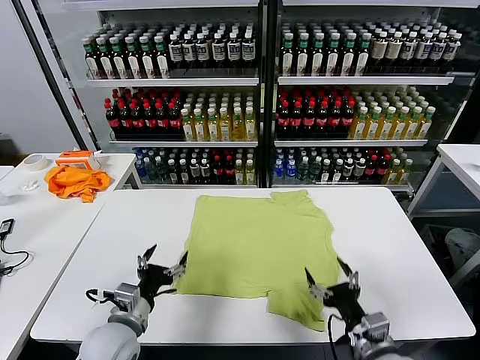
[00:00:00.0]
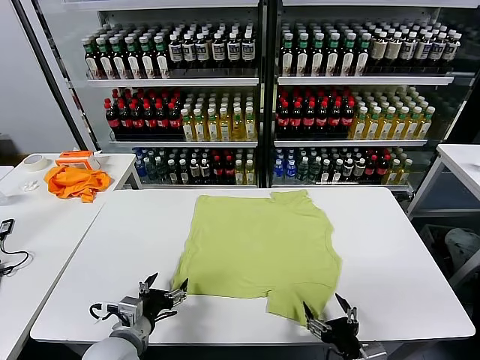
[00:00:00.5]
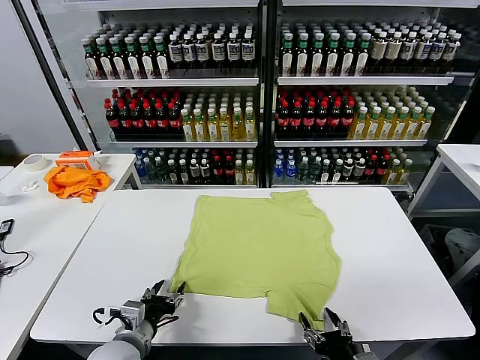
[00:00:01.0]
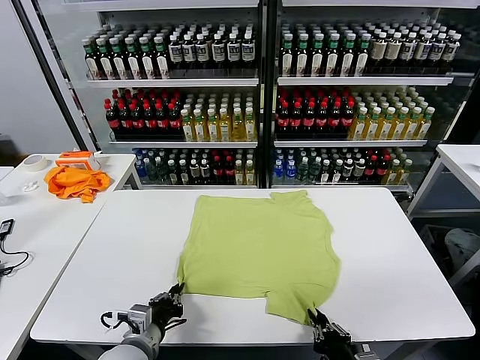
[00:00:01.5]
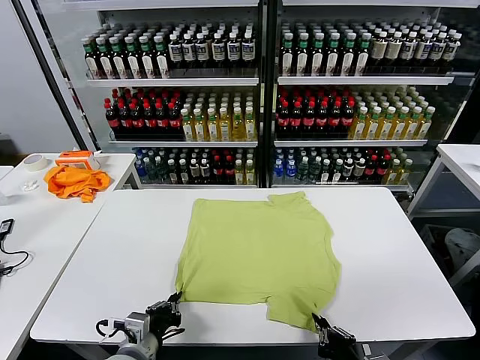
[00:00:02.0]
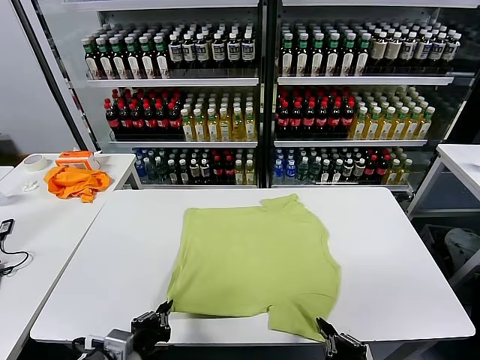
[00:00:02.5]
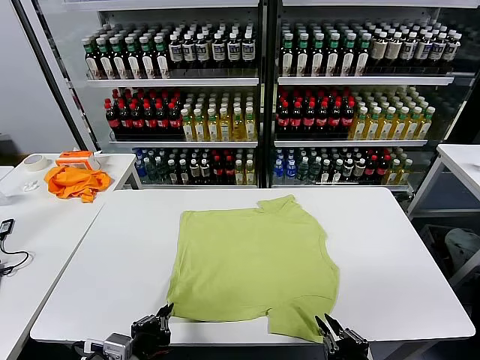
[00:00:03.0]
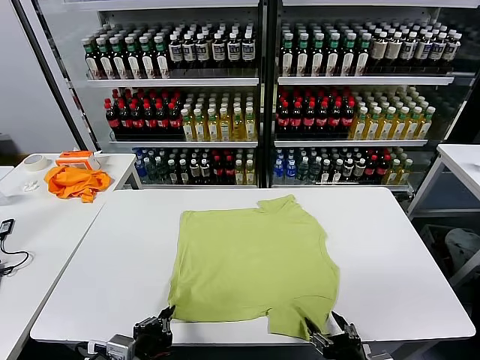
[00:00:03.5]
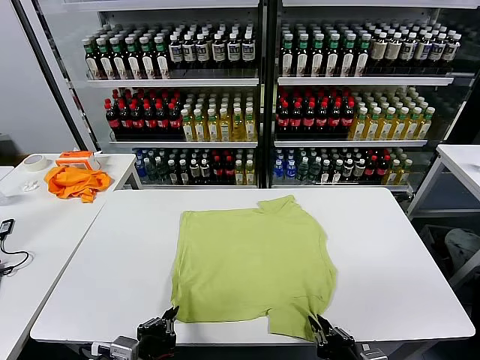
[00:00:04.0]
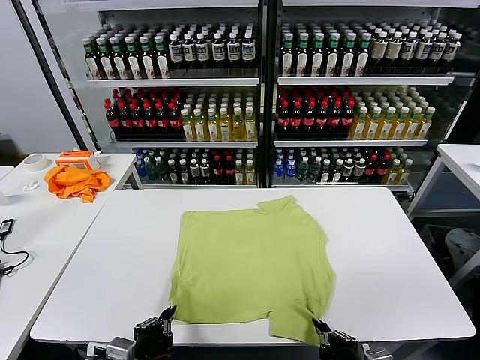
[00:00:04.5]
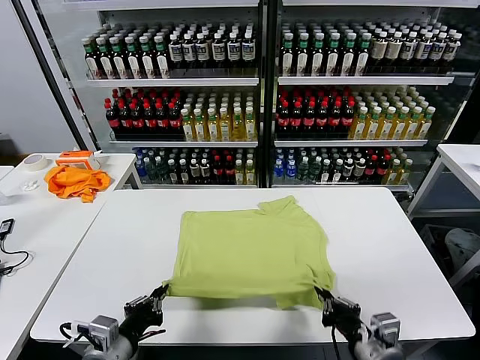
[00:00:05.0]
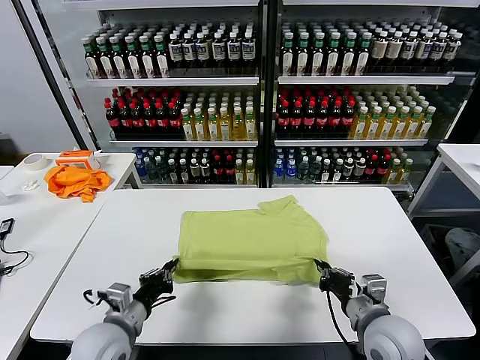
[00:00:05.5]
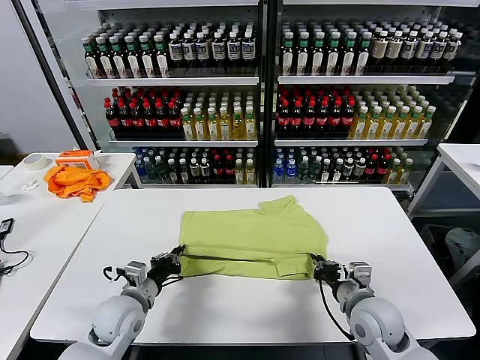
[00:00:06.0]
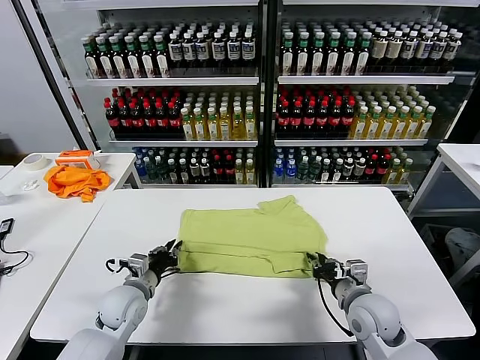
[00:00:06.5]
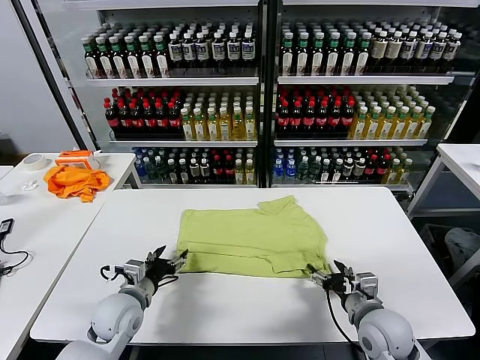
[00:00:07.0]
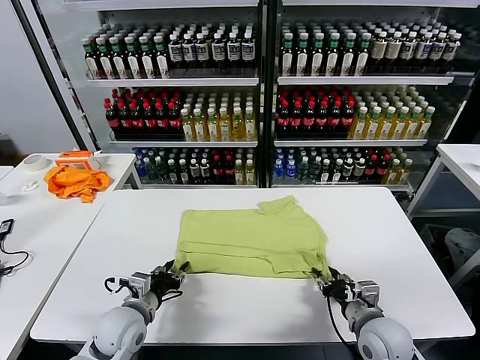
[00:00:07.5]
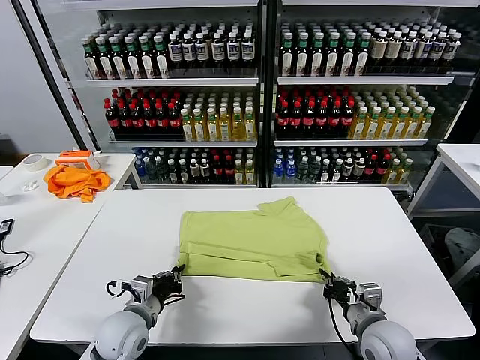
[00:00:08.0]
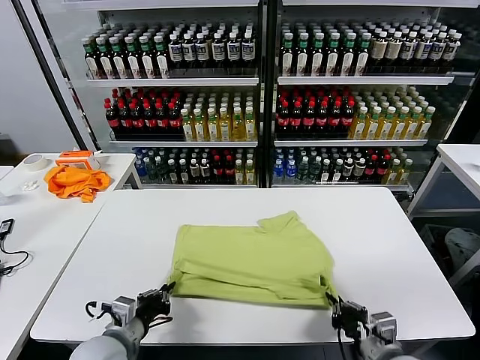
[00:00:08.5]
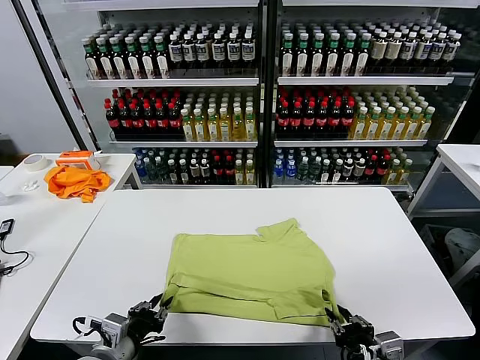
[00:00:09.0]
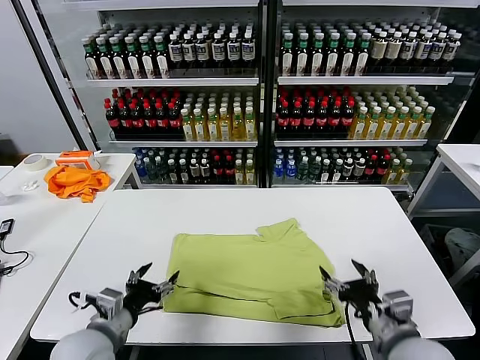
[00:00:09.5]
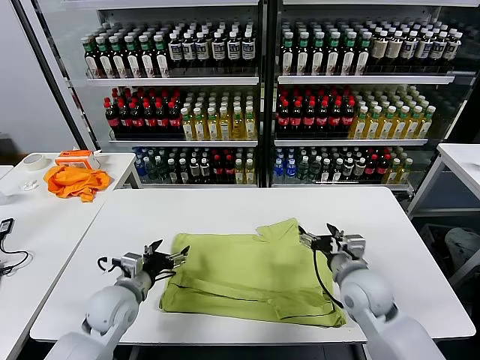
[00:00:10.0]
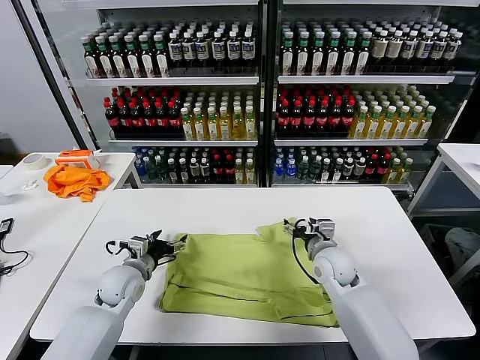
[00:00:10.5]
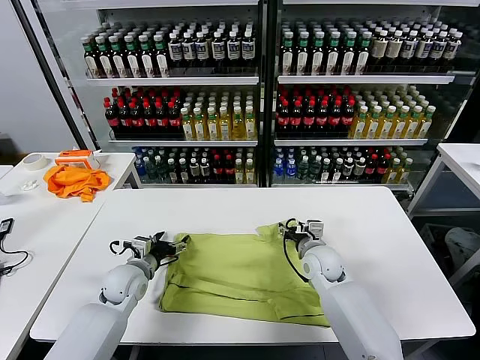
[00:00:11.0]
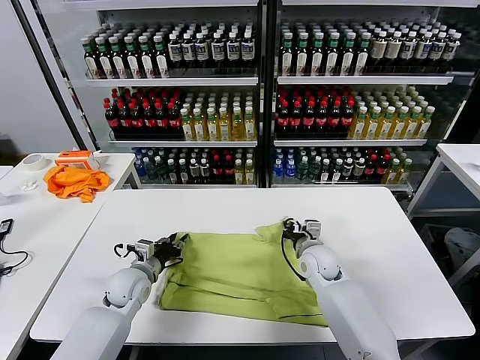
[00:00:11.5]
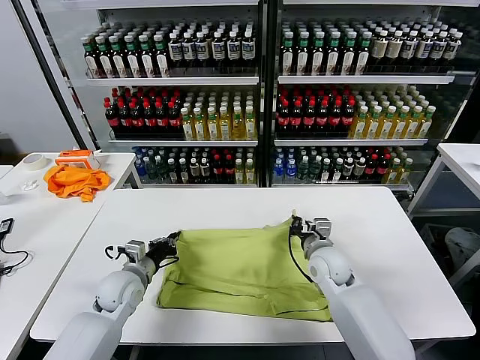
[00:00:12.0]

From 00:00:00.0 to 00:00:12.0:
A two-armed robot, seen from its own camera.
Task of the whole recording: fold and organize the clothes.
Step, from 00:00:00.0 to 00:00:01.5: use both grippers simultaneously to clamp the lower edge of the clothing fabric.
Step, from 00:00:02.0 to 00:00:06.5: use both grippers to drag the lower edge of the fabric forward and fold it over the upper edge.
Step, from 00:00:07.0 to 00:00:09.0: Drag the clothes downward with both gripper.
Step, from 00:00:09.5 to 00:00:11.5: use both grippers simultaneously to clamp the upper edge of the clothing fabric.
From 00:00:02.0 to 00:00:04.0: The right gripper opens, then closes again, while the left gripper is displaced backward by approximately 5 cm.
From 00:00:04.0 to 00:00:06.0: The grippers both shift forward by roughly 20 cm.
From 00:00:06.0 to 00:00:08.0: The right gripper goes roughly 5 cm backward, and opens and closes again, while the left gripper opens and closes again.
From 00:00:08.0 to 00:00:10.0: The left gripper goes backward and returns, approximately 10 cm each way, and opens up. The right gripper is displaced forward by about 15 cm, and opens up.
From 00:00:10.0 to 00:00:12.0: The left gripper changes place by some 5 cm, and closes. The right gripper closes.

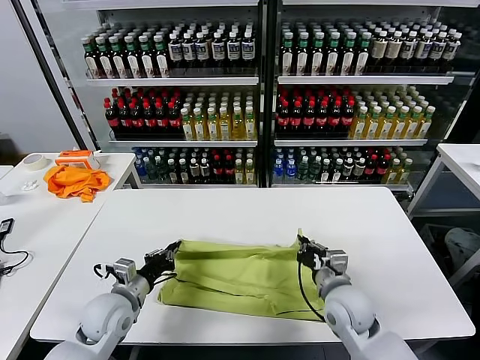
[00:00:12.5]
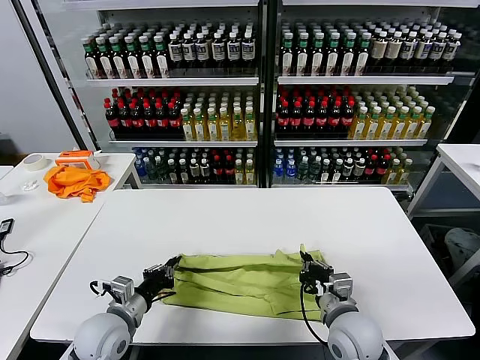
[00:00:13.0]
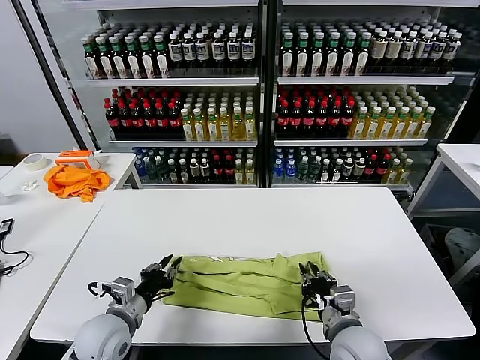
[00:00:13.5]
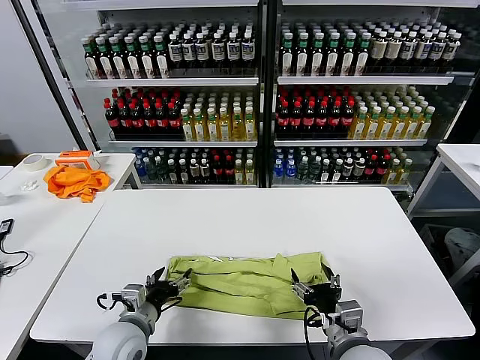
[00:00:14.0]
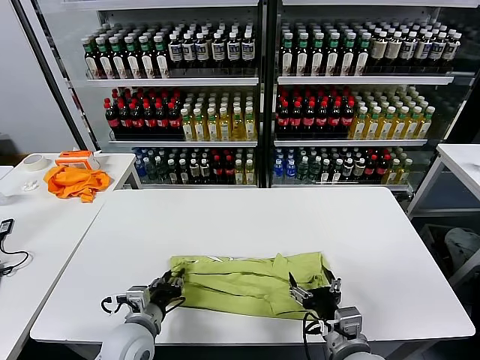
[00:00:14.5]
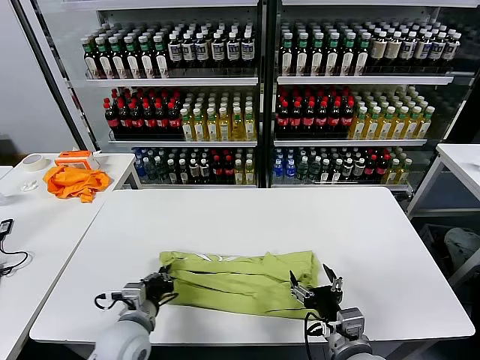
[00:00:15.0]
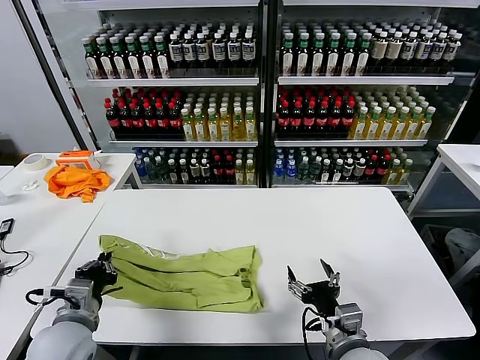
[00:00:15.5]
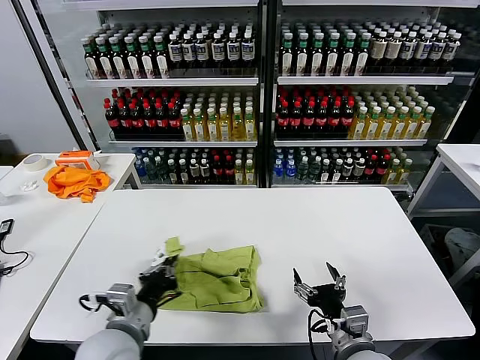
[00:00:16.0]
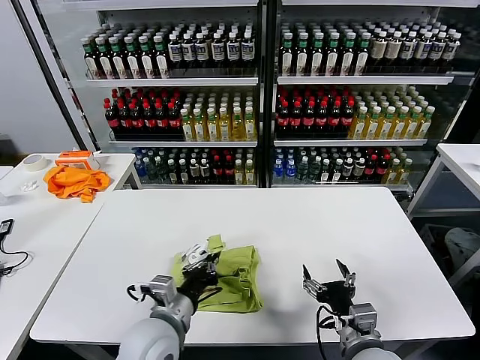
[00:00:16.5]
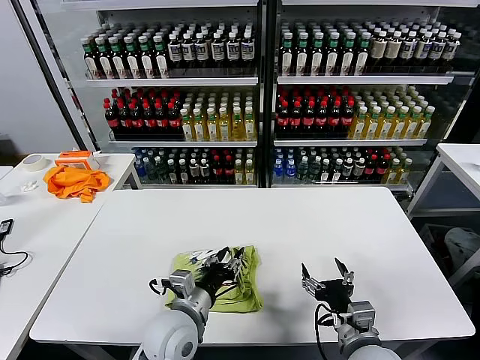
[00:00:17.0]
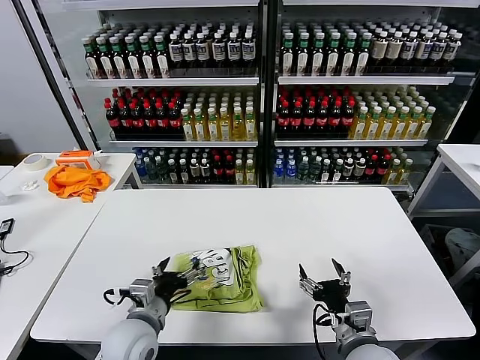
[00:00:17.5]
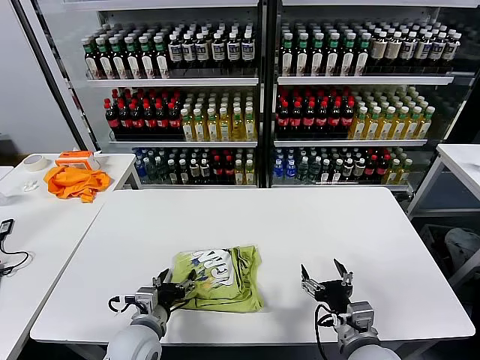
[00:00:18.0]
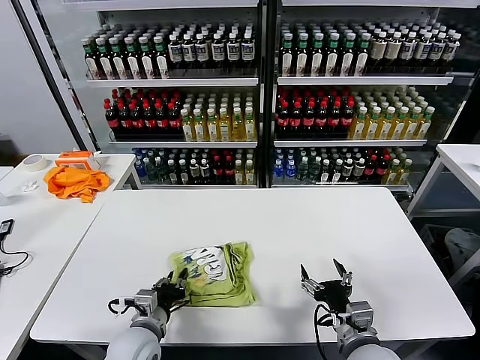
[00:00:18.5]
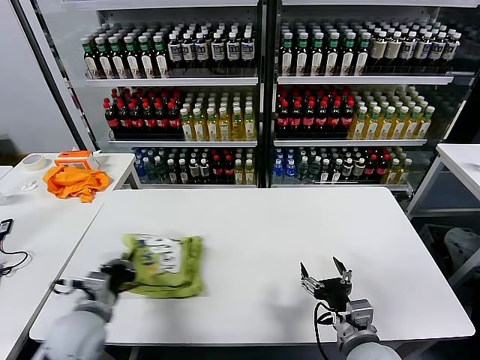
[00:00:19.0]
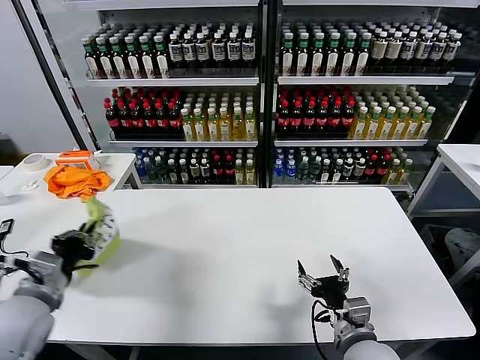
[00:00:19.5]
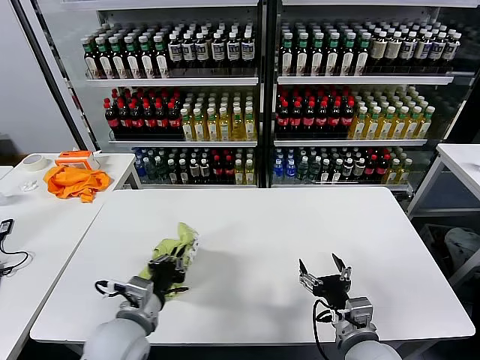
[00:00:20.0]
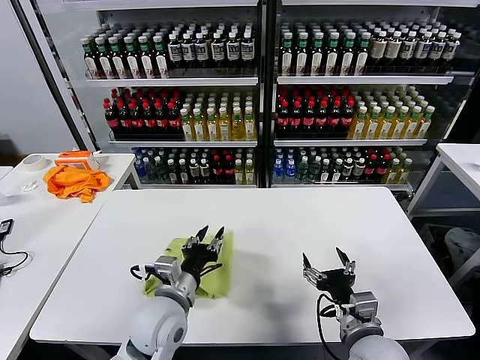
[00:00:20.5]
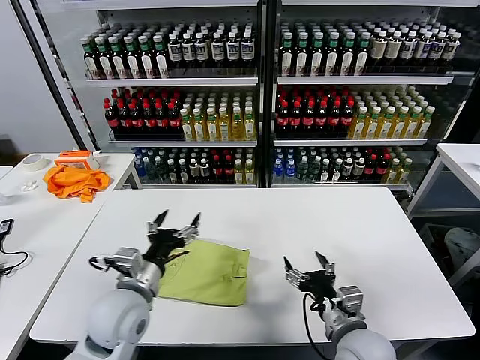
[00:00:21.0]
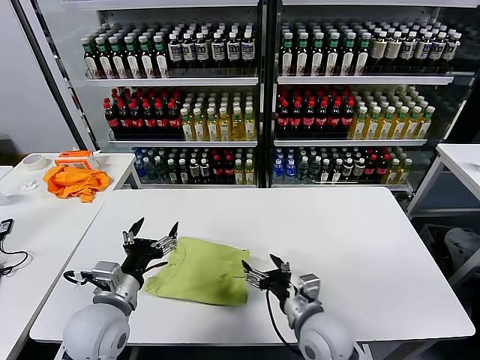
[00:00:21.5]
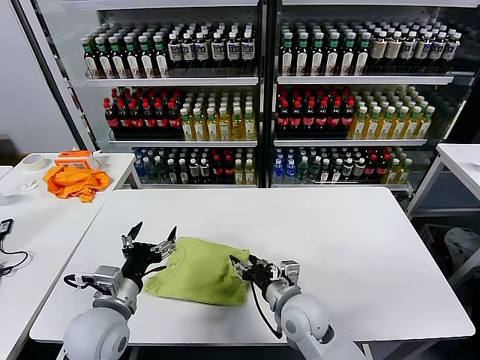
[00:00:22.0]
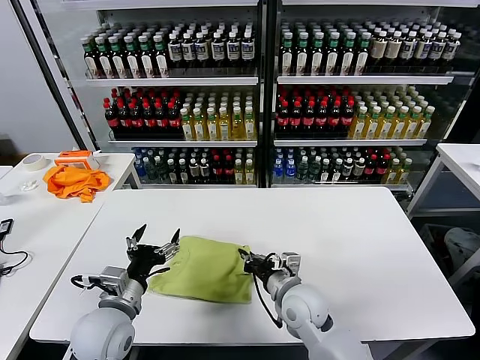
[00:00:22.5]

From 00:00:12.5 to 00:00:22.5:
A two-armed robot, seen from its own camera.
Task of the whole recording: fold and organize the clothes.
Step, from 00:00:12.5 to 00:00:13.5: use both grippers to drag the upper edge of the fabric backward and fold it over the lower edge.
Step, from 00:00:14.0 to 00:00:14.5: use the left gripper to clamp the left edge of the fabric.
Step, from 00:00:15.0 to 00:00:17.0: use the left gripper to drag the left edge of the fabric to the left and folds it over the right edge.
Step, from 00:00:17.5 to 00:00:20.5: Flip the folded clothes over with left gripper.
From 00:00:12.5 to 00:00:14.5: The left gripper is displaced to the right and backward by some 10 cm, and opens up; the right gripper shifts about 10 cm backward, and opens.
From 00:00:14.5 to 00:00:16.5: The left gripper moves upward and to the right, roughly 10 cm, and closes.
From 00:00:16.5 to 00:00:18.5: The left gripper heads downward and to the left, covering some 10 cm, and opens, then closes once more.
From 00:00:18.5 to 00:00:20.5: The left gripper heads upward, covering roughly 10 cm, and moves about 15 cm to the left and comes back.
From 00:00:20.5 to 00:00:22.5: The left gripper is displaced to the left by about 10 cm, and opens up, while the right gripper moves forward and to the left, approximately 15 cm, and closes up.

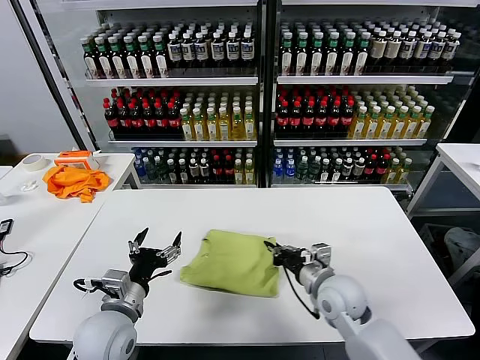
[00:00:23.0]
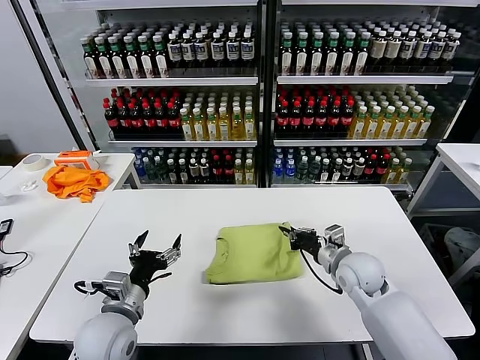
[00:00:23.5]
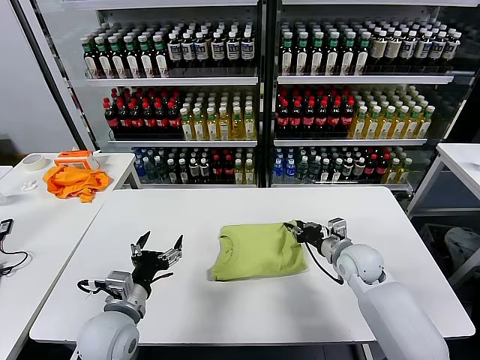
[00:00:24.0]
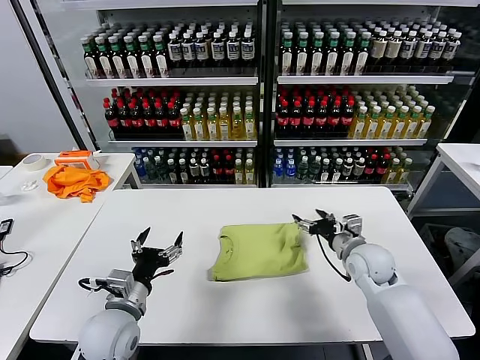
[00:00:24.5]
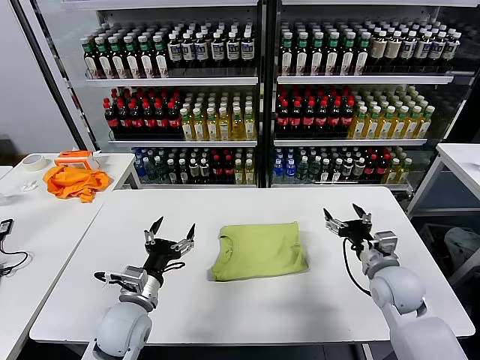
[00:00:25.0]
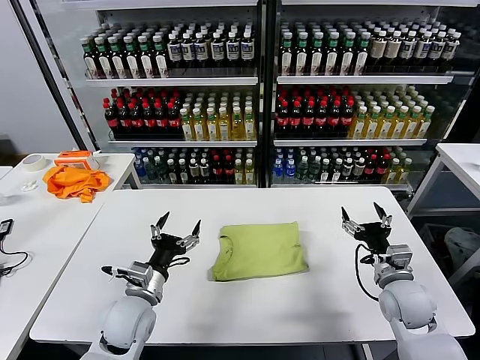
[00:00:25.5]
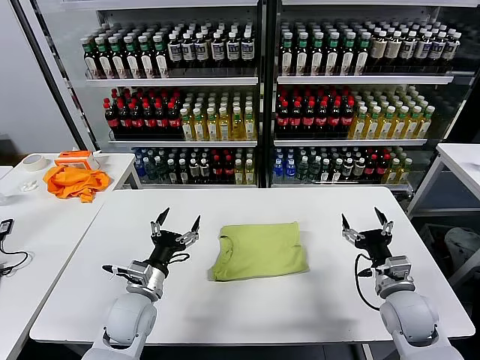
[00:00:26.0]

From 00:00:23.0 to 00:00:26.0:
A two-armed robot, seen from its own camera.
Task of the whole recording: fold and organize the clothes.
From 00:00:23.0 to 00:00:24.5: The right gripper heads to the right and forward, covering some 10 cm, and opens up.
From 00:00:24.5 to 00:00:26.0: The left gripper ends up approximately 5 cm from where it was. Meanwhile the right gripper goes about 10 cm backward.
